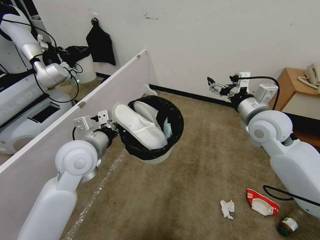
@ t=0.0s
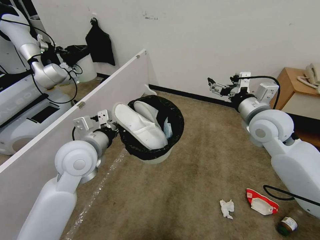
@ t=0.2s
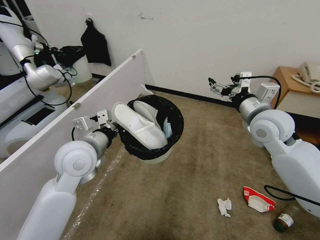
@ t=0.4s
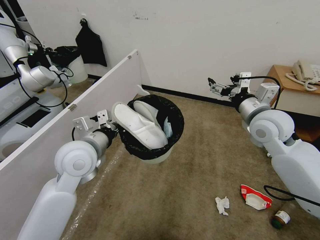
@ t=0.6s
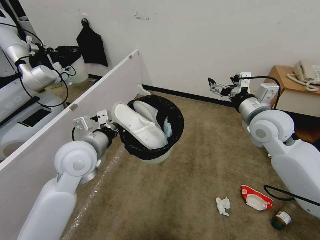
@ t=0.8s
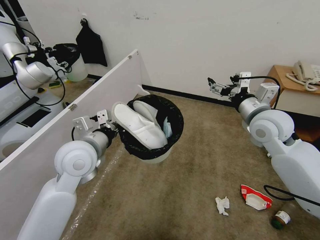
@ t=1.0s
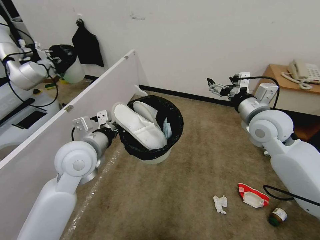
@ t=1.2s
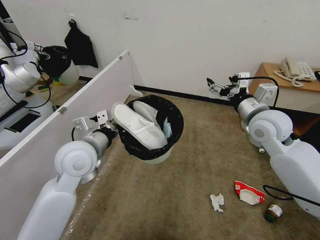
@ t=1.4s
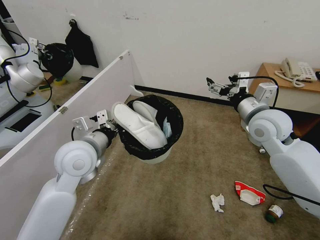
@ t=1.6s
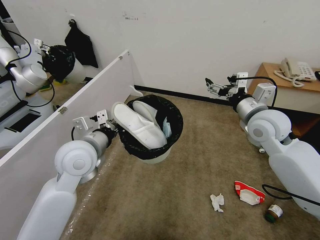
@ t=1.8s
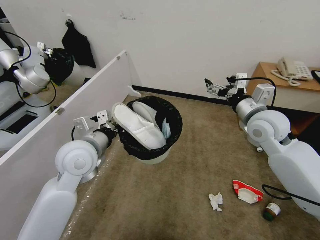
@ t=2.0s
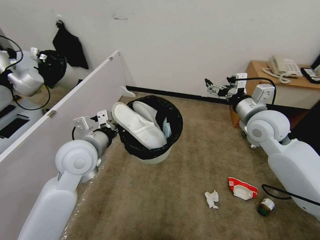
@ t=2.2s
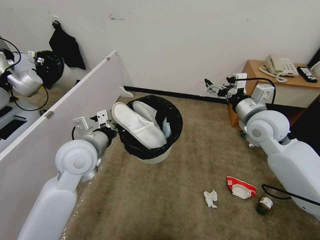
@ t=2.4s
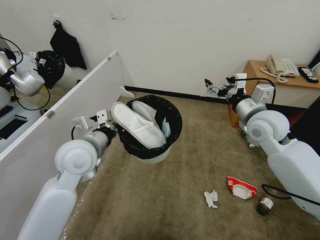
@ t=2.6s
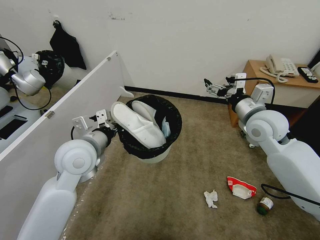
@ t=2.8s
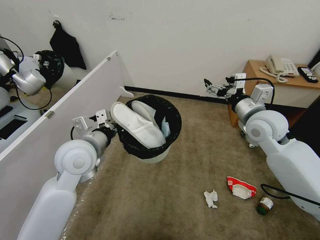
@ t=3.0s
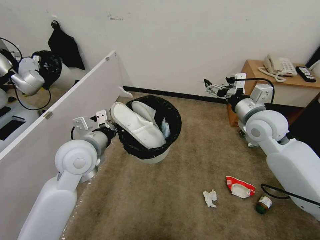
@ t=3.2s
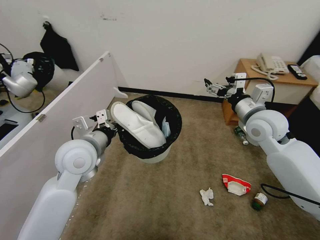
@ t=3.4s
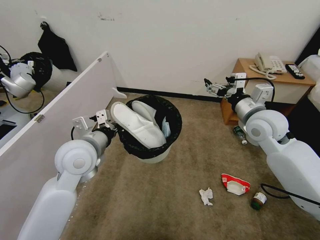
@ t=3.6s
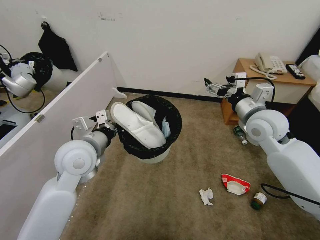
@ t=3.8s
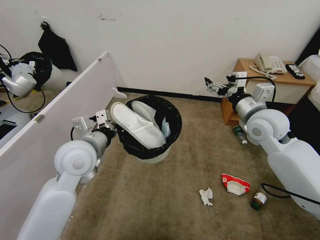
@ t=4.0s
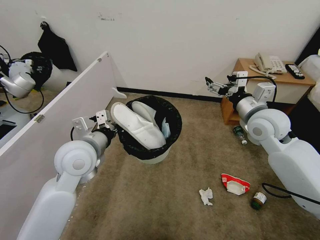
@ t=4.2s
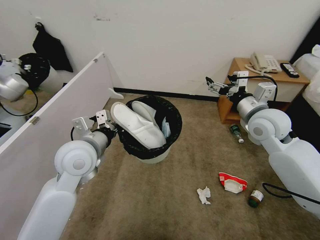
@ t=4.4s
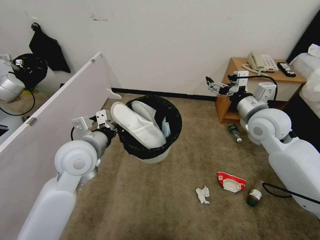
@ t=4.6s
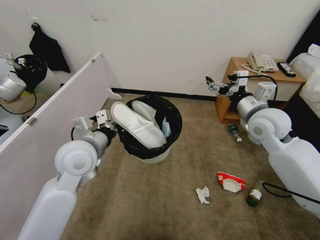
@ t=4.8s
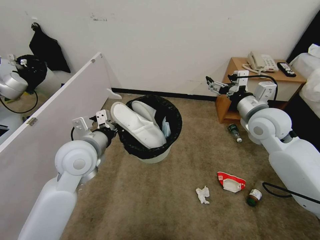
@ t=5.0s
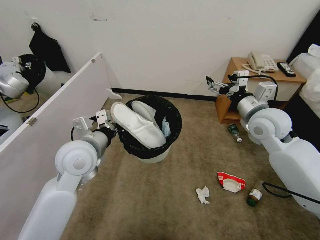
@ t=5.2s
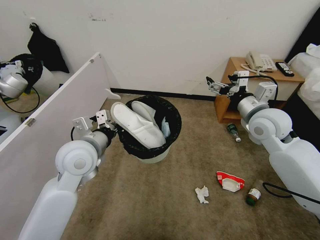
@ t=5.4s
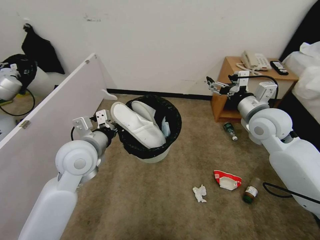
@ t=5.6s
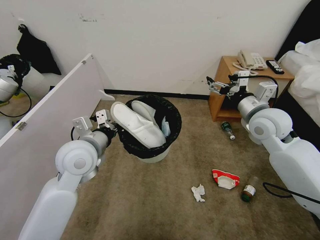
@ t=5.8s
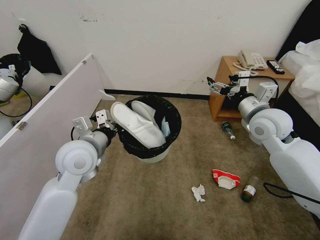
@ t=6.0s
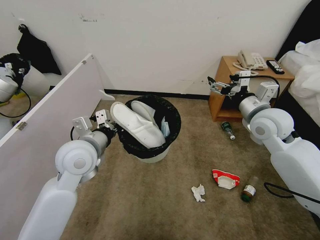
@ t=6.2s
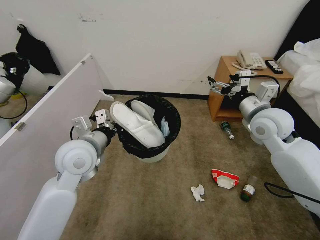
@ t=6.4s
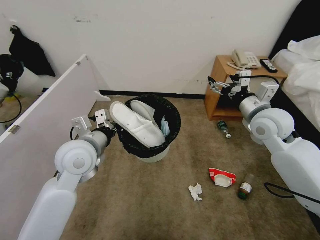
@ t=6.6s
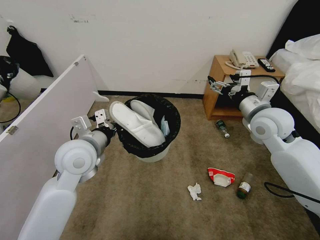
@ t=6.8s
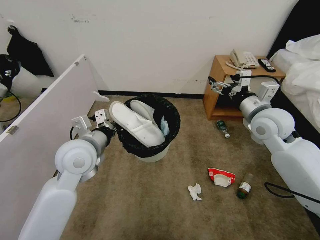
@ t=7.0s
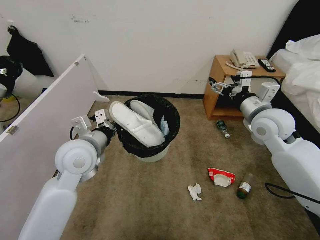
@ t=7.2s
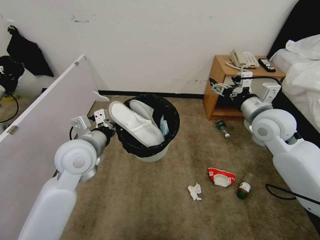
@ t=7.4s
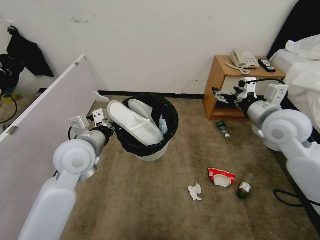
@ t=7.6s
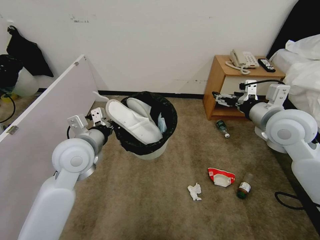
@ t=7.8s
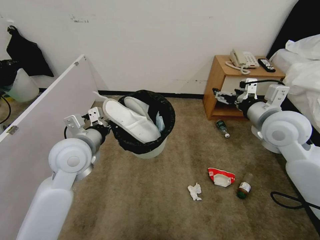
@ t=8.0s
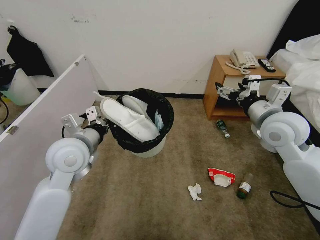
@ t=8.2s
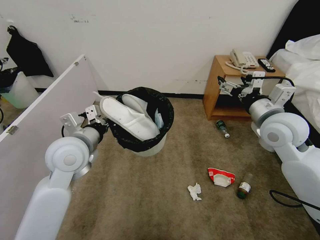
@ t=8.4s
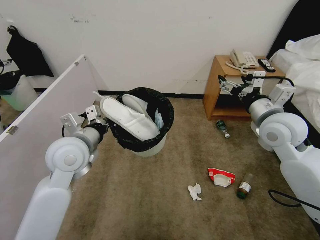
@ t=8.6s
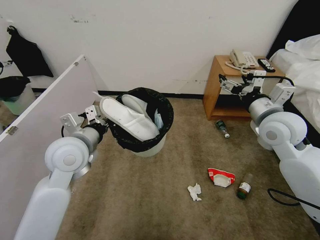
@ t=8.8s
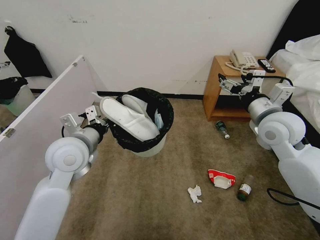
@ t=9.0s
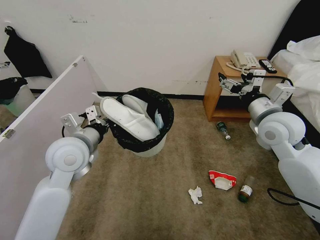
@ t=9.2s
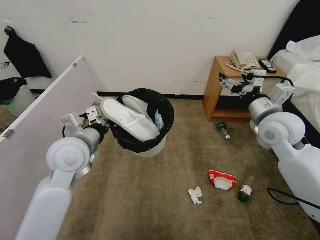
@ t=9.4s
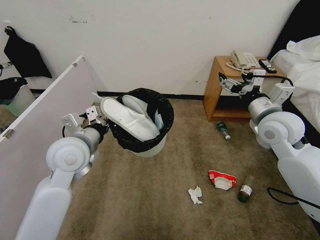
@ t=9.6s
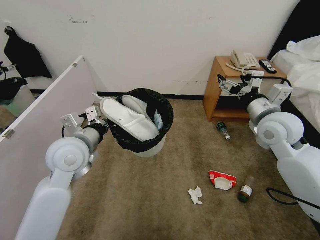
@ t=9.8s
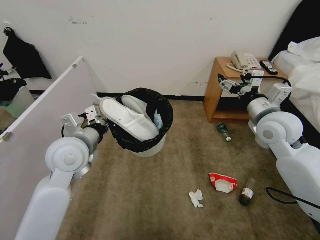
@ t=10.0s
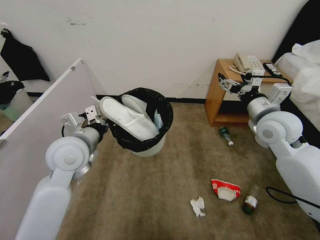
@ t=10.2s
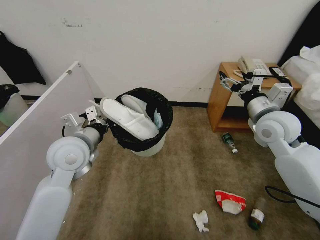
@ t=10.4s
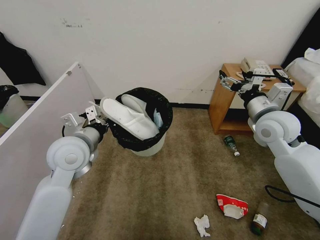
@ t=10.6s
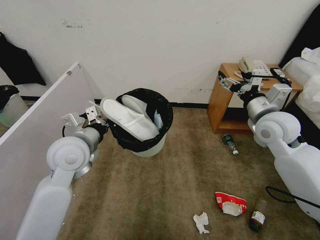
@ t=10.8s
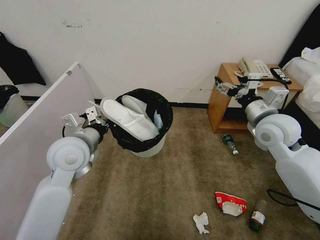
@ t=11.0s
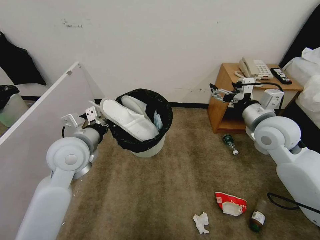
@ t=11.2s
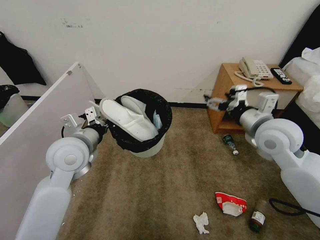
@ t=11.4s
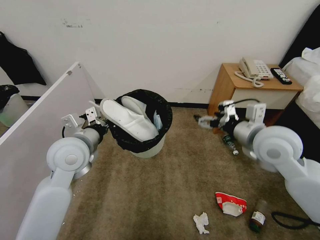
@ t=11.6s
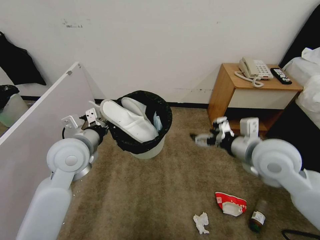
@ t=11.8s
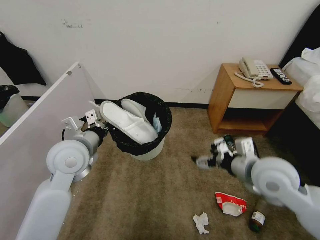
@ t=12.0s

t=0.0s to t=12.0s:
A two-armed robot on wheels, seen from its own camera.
Task of the whole recording: Pick up the trash bin, then pick up the garbage from the floor and place it into the trash bin.
t=1.6s to t=6.0s: Neither gripper changes place.
t=7.6s to t=10.4s: The grippers move only a little.
t=10.4s to t=12.0s: The right gripper heads backward and downward, covering some 15 cm.

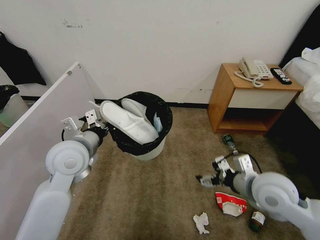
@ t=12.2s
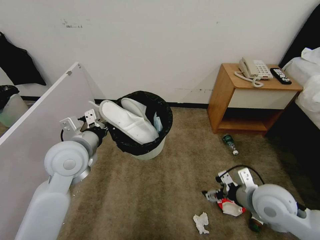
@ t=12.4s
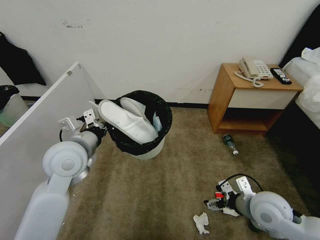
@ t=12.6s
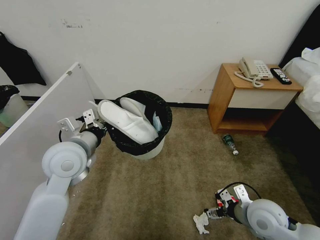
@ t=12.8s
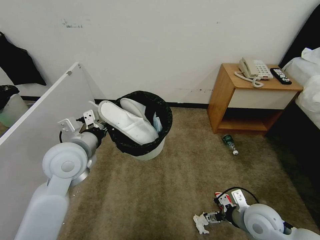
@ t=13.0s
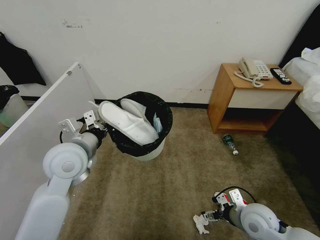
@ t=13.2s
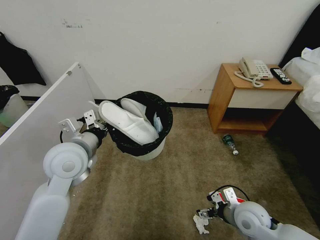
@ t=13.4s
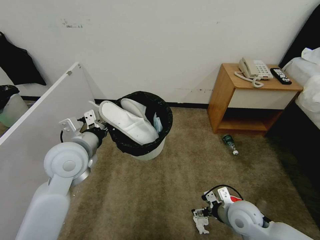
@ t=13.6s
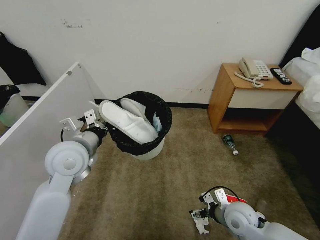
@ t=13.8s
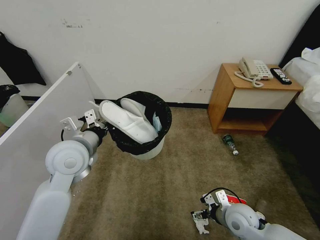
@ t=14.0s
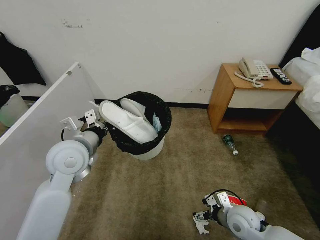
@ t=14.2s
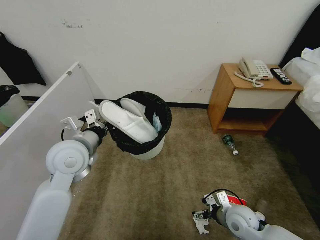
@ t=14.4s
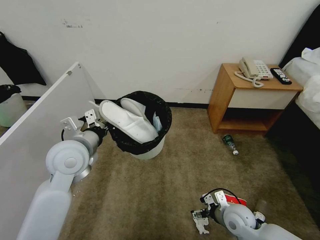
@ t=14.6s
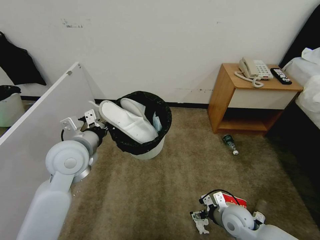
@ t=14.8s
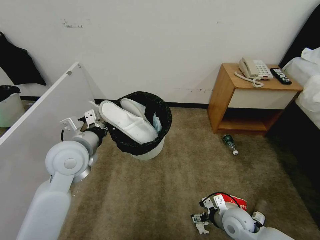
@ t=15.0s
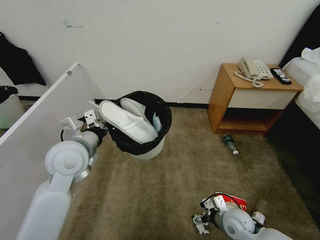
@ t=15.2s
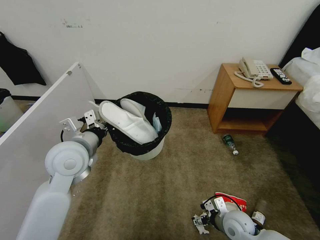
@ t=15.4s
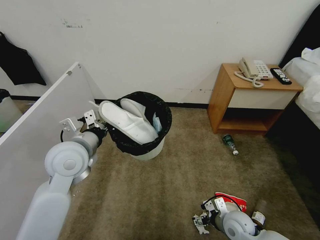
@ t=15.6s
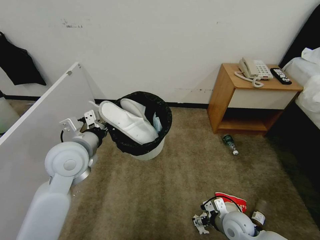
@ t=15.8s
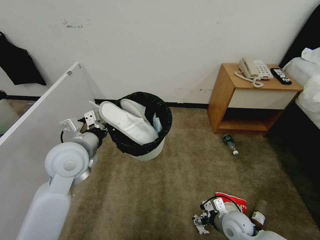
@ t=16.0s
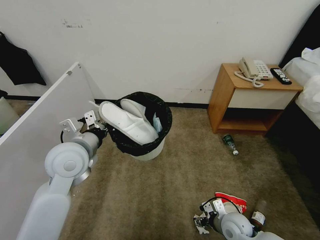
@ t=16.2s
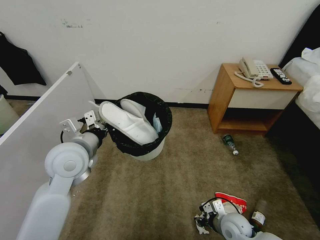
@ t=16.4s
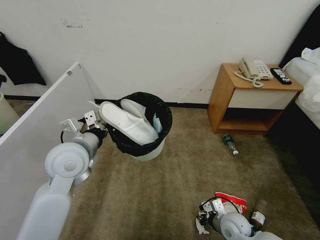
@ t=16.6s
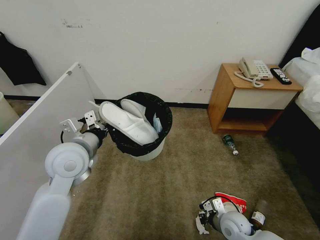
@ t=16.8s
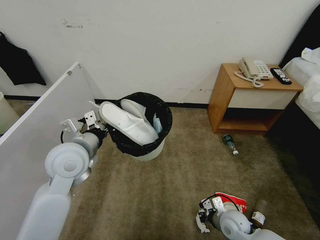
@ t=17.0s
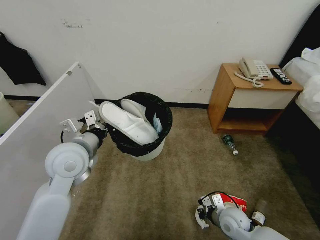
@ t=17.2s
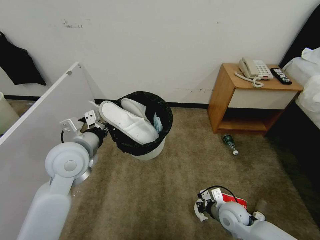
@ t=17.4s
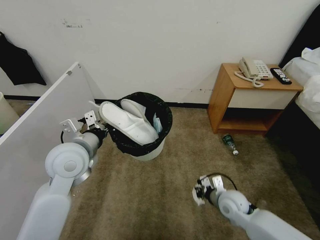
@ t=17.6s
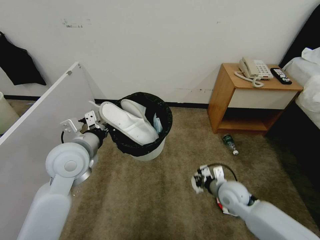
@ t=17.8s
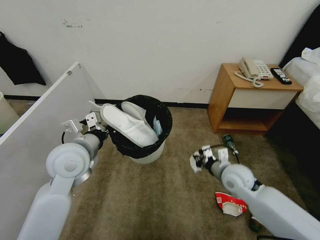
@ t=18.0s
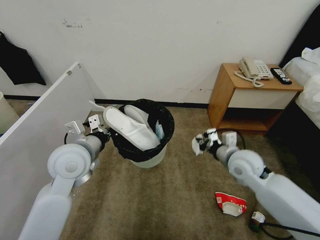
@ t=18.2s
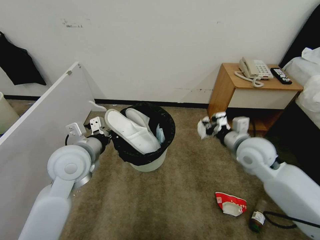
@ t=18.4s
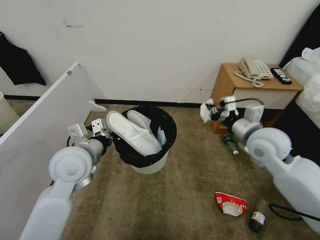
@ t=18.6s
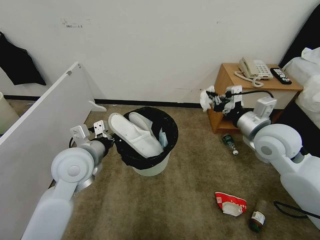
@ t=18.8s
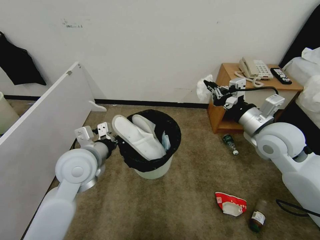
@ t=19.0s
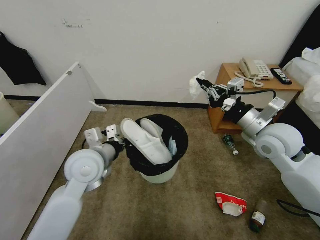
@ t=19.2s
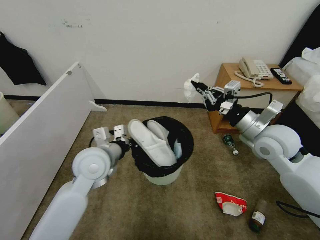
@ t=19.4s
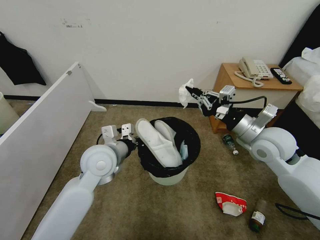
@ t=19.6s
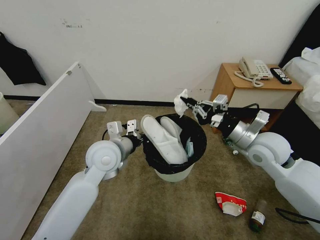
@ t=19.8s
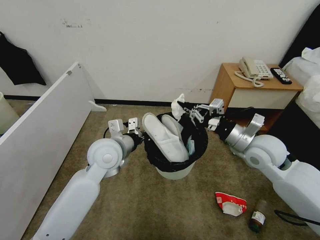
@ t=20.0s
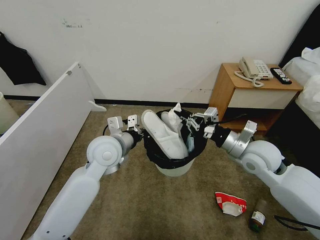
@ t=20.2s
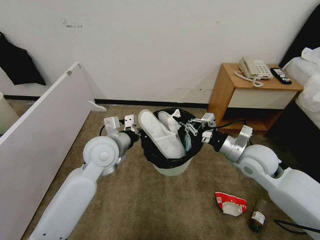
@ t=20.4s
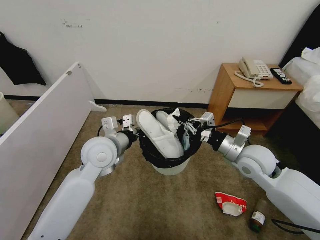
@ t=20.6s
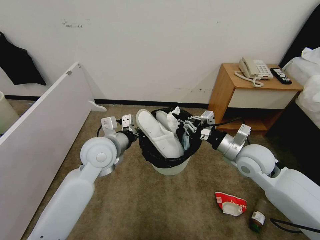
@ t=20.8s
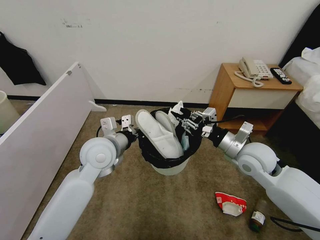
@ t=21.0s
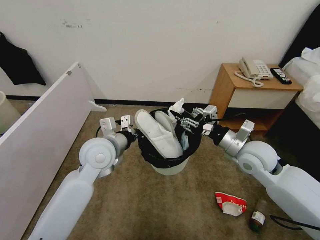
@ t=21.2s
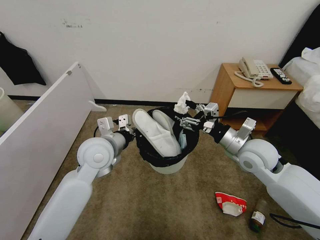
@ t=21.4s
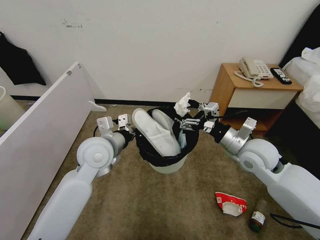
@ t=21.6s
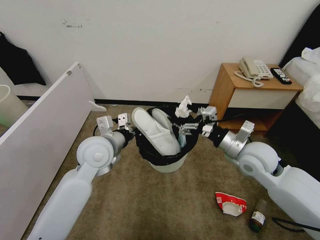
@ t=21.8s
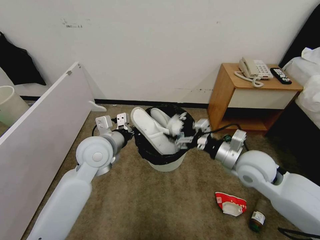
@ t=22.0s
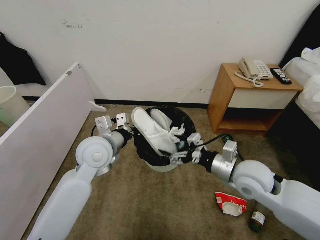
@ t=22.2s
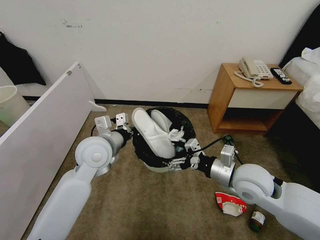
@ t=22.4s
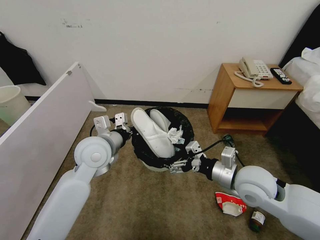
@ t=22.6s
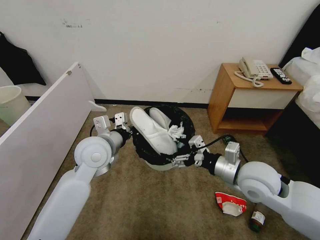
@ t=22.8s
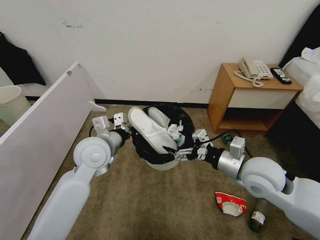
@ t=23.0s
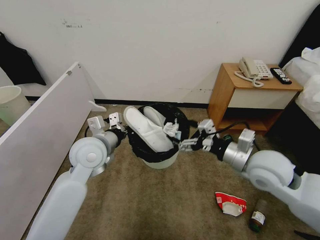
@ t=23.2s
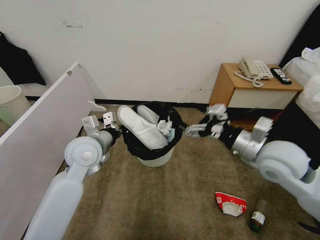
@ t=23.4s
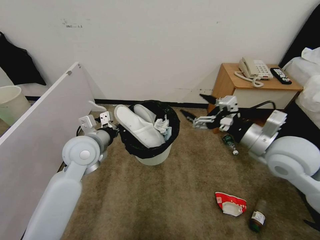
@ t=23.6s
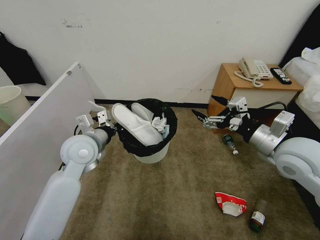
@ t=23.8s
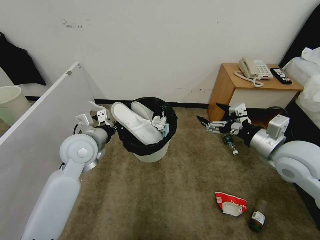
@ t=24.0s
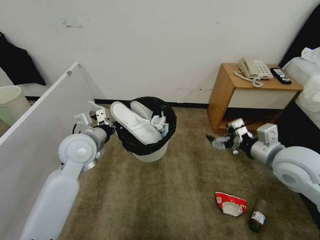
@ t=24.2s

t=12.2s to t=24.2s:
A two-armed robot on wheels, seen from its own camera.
Task of the whole recording: Pick up the trash bin, then pick up the garbage from the floor and place it into the trash bin.
t=12.2s to t=13.8s: The right gripper moves downward, about 15 cm.
t=13.8s to t=15.2s: The right gripper shifts roughly 5 cm downward.
t=15.2s to t=16.6s: The right gripper closes its fingers.
t=16.6s to t=18.2s: The right gripper travels upward and forward by about 25 cm.
t=18.2s to t=19.8s: The right gripper heads upward, covering approximately 10 cm; the left gripper goes roughly 5 cm to the right.
t=19.8s to t=21.2s: The right gripper opens its fingers.
t=21.2s to t=22.6s: The right gripper shifts about 5 cm backward, and opens up.
t=22.6s to t=24.2s: The right gripper shifts approximately 10 cm to the right and upward.
